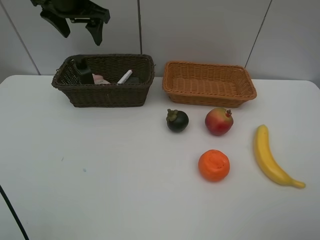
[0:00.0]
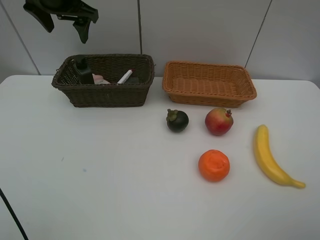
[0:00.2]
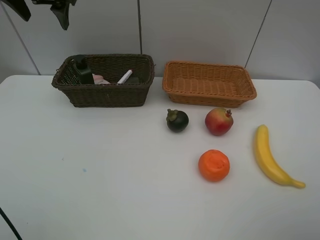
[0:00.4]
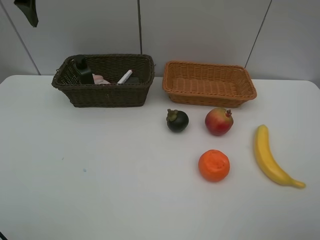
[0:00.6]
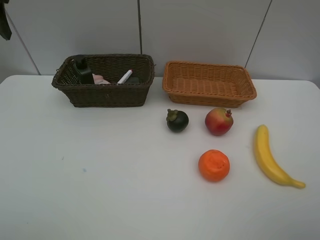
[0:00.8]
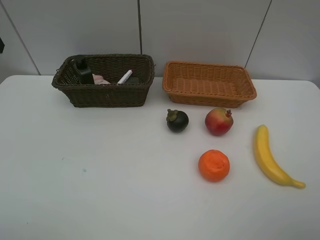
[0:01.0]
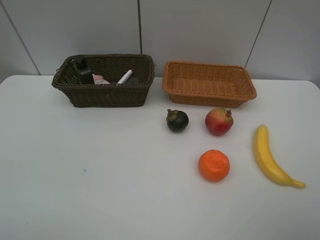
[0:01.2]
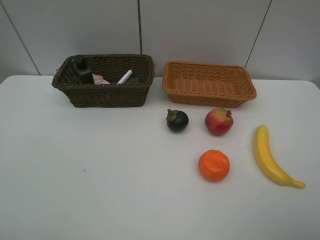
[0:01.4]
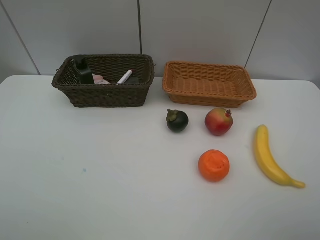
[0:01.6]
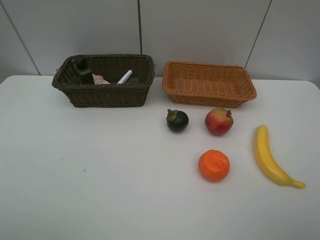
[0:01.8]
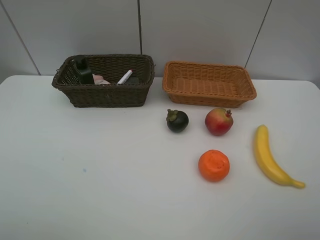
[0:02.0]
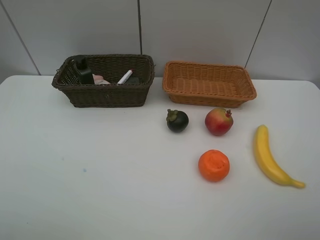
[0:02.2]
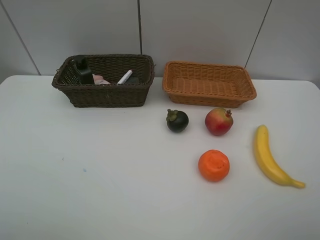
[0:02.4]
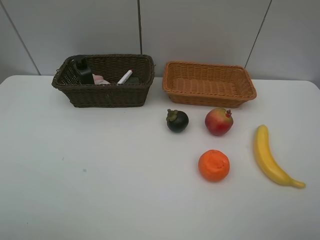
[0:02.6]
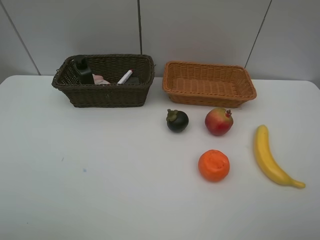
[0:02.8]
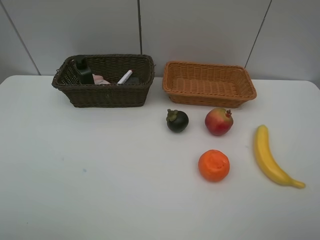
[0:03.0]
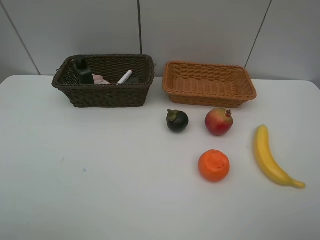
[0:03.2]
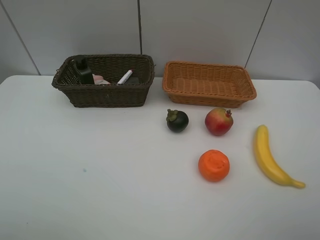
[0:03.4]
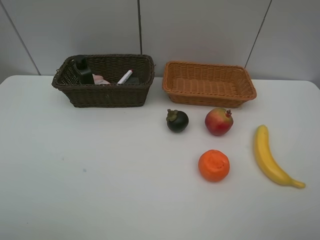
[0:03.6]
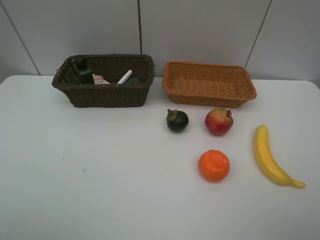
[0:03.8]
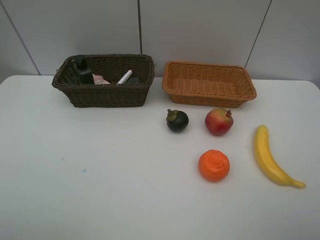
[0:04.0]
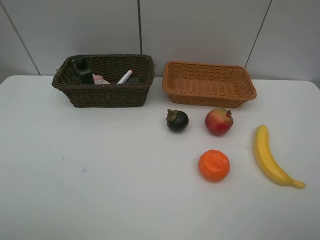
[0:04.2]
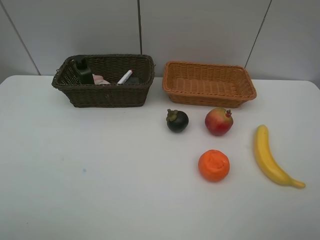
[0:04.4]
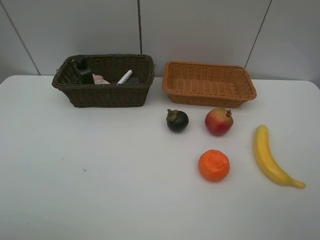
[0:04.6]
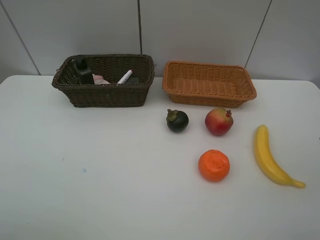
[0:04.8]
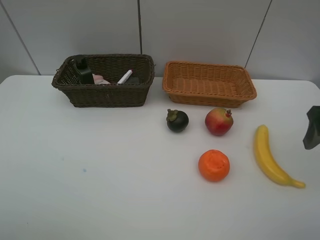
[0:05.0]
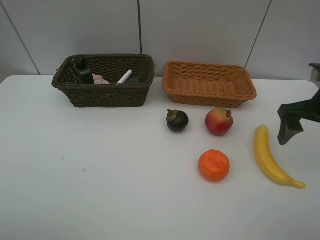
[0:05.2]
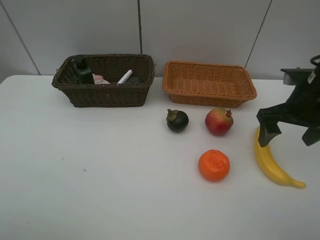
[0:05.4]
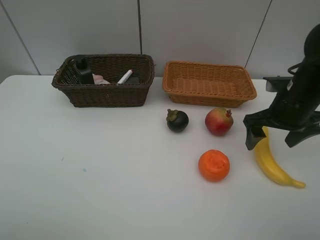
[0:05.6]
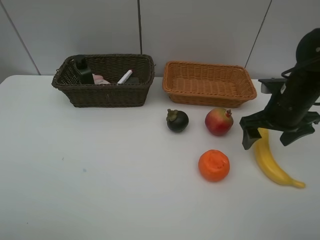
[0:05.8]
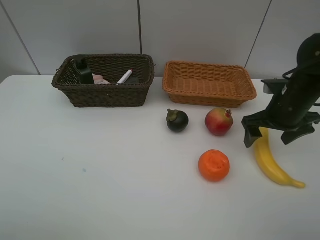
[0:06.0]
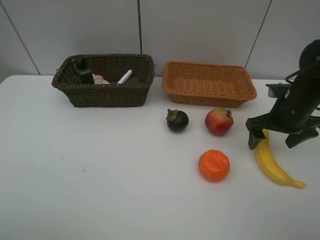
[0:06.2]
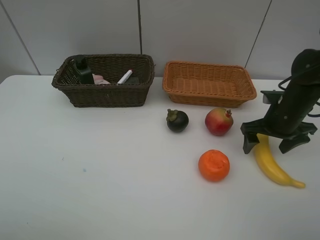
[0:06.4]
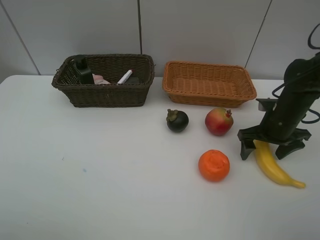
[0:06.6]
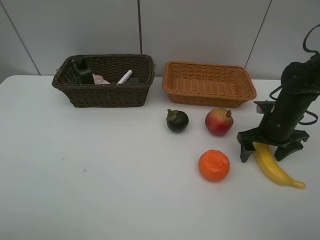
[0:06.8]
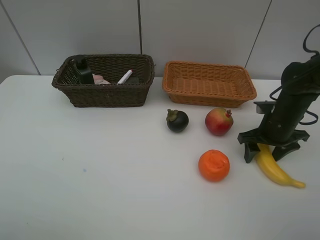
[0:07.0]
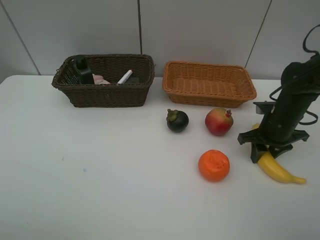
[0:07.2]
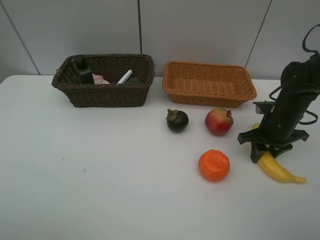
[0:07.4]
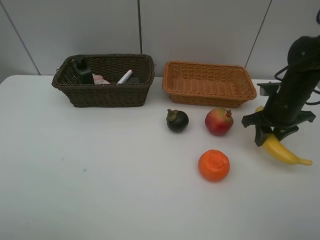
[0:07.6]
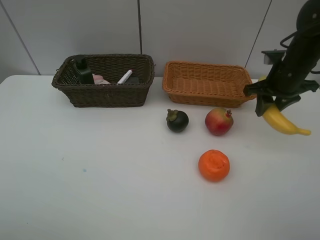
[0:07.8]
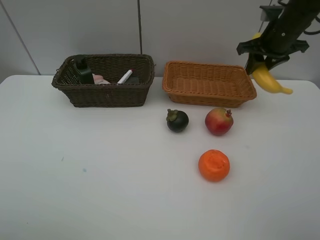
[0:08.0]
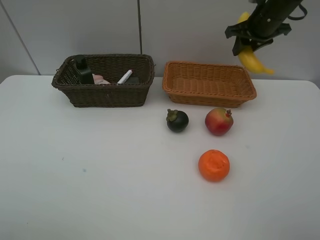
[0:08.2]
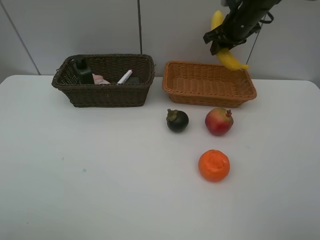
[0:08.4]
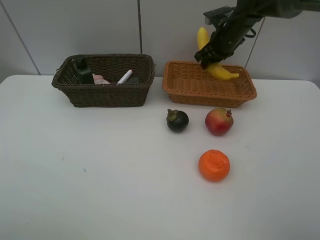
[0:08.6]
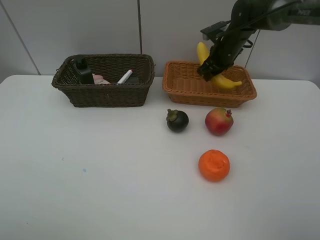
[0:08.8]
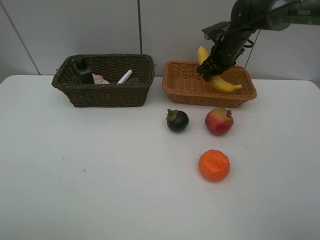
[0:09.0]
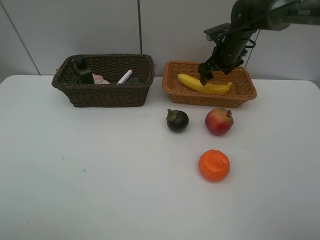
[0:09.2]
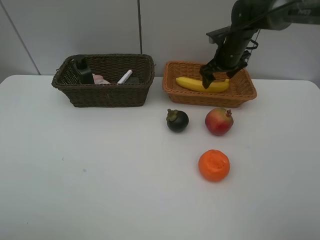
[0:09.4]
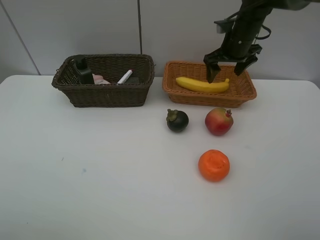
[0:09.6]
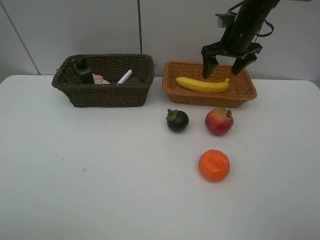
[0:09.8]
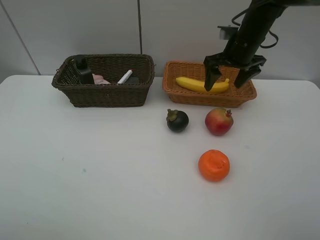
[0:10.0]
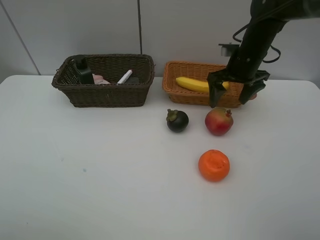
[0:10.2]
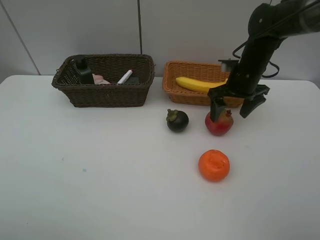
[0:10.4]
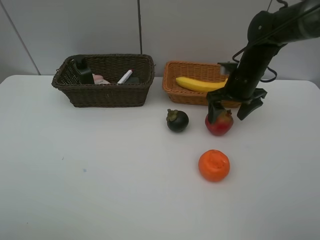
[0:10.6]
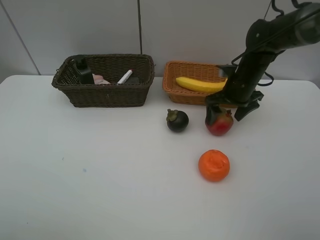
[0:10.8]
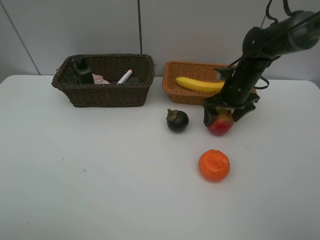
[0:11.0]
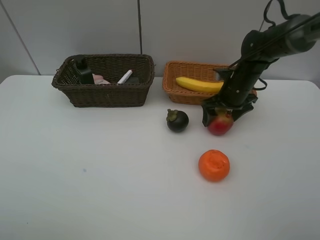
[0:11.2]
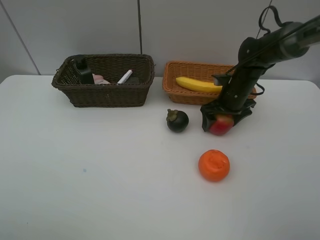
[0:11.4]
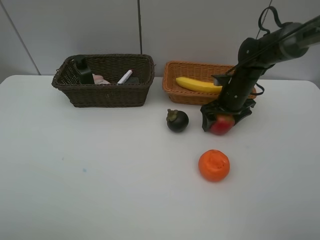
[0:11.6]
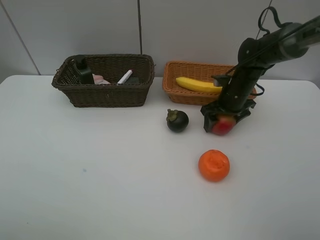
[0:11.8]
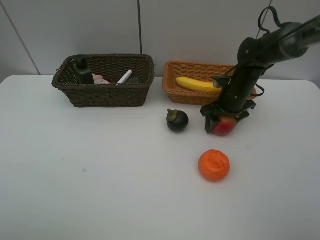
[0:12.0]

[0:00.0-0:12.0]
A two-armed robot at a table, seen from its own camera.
Task of the whole recording: Place multiple objects separately in different baskets.
Step, 0:00.0 to 0:07.4: Pick up banana with right gripper.
Step, 0:07.6 to 0:09.2: Place the banana in the light basket with right gripper.
0:00.0 to 0:01.6: The left gripper heads backward, covering about 35 cm.
0:04.4 to 0:06.0: The right gripper is displaced forward and downward by roughly 30 cm.
0:06.0 to 0:07.6: The right gripper closes its fingers.
0:07.6 to 0:09.0: The right gripper goes approximately 20 cm forward and to the left.
0:09.0 to 0:10.4: The right gripper is displaced backward by roughly 10 cm, and opens up.
0:10.4 to 0:12.0: The right gripper moves downward, about 5 cm, and closes up.

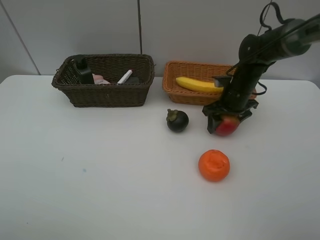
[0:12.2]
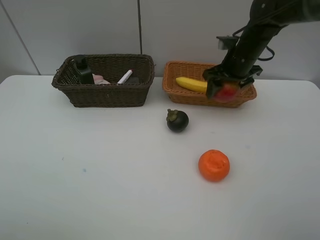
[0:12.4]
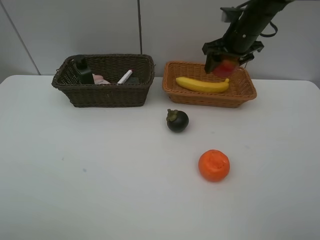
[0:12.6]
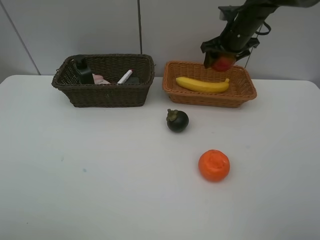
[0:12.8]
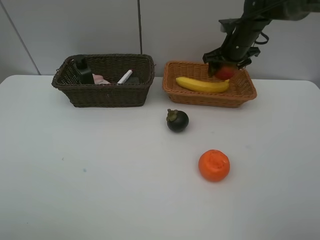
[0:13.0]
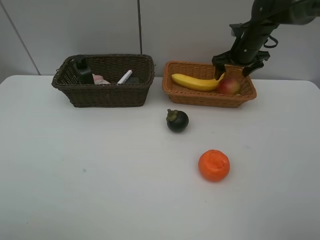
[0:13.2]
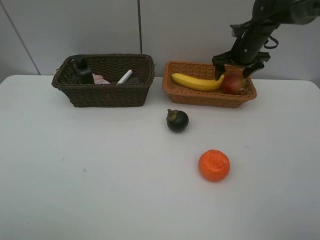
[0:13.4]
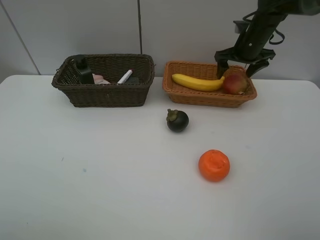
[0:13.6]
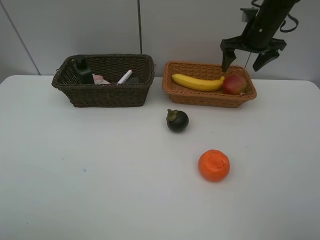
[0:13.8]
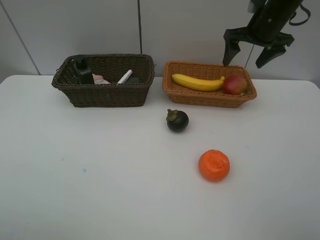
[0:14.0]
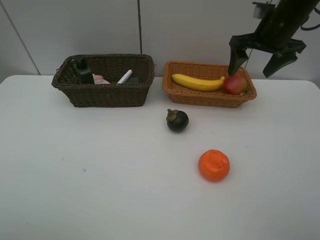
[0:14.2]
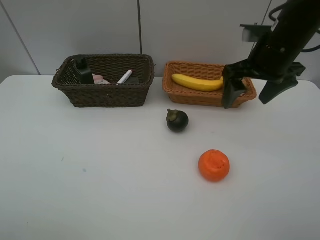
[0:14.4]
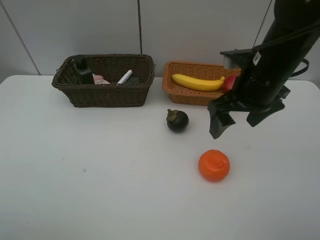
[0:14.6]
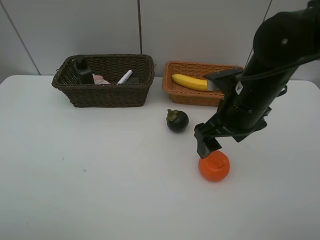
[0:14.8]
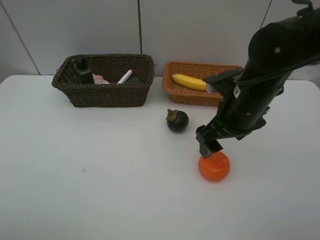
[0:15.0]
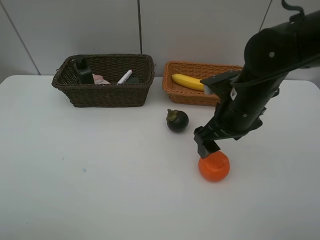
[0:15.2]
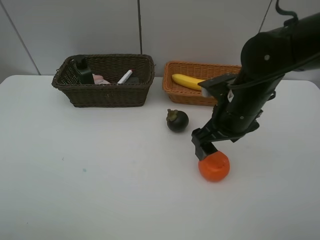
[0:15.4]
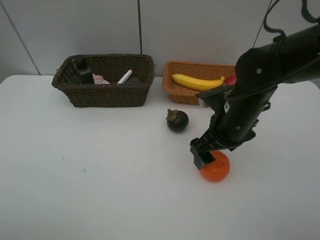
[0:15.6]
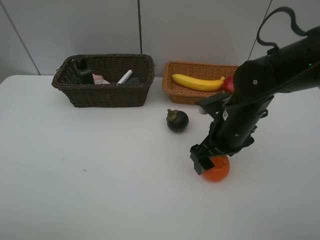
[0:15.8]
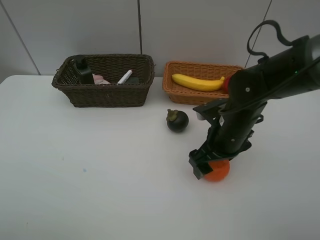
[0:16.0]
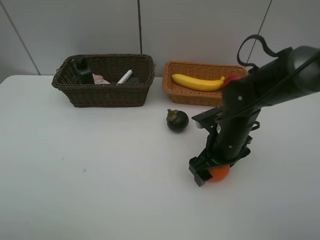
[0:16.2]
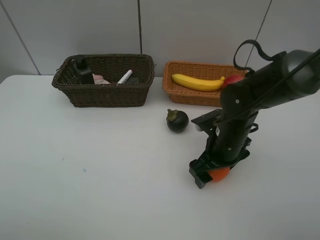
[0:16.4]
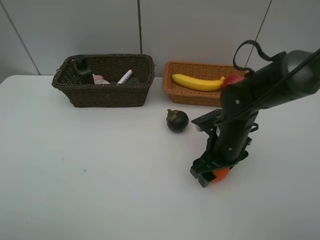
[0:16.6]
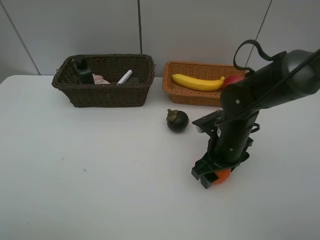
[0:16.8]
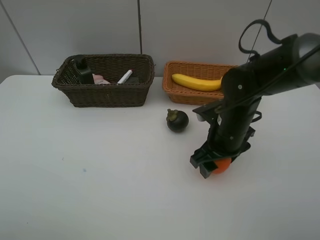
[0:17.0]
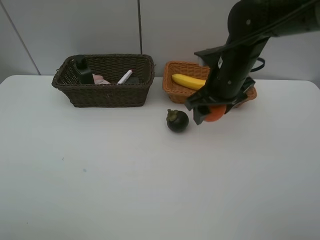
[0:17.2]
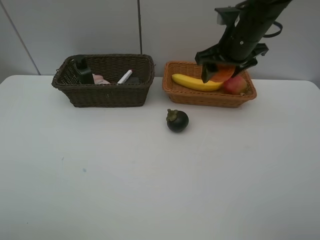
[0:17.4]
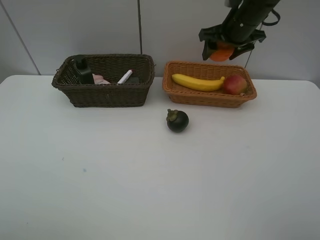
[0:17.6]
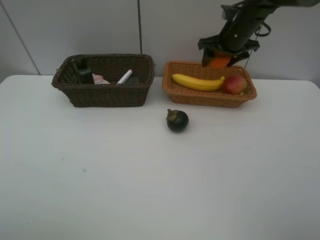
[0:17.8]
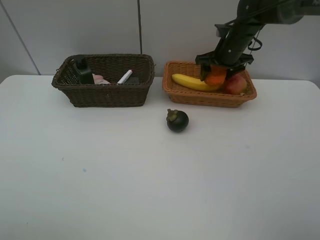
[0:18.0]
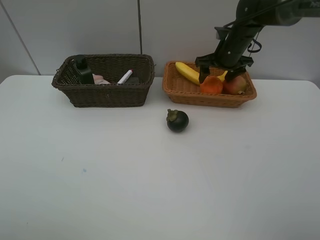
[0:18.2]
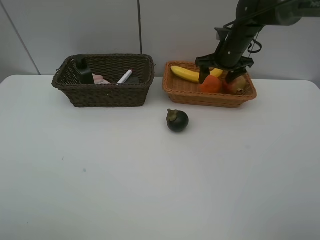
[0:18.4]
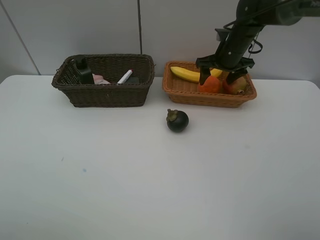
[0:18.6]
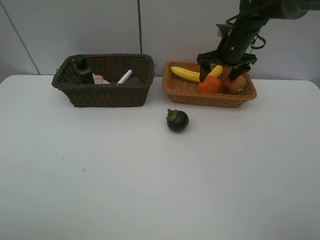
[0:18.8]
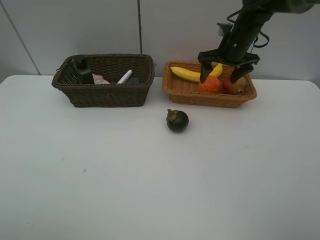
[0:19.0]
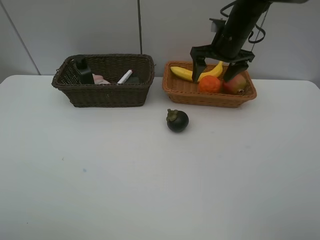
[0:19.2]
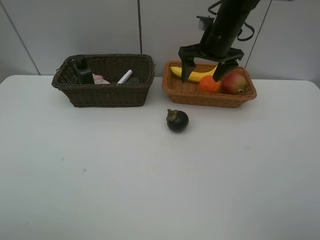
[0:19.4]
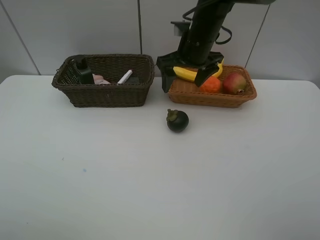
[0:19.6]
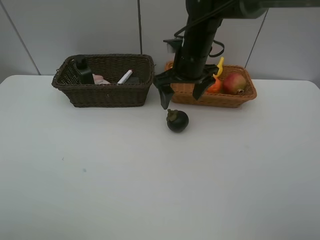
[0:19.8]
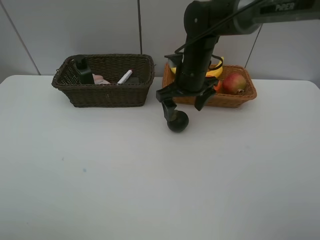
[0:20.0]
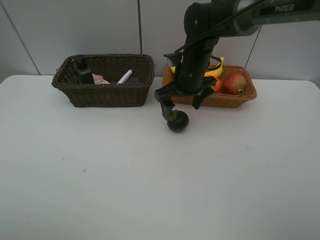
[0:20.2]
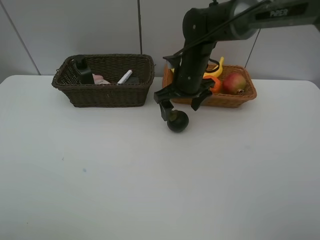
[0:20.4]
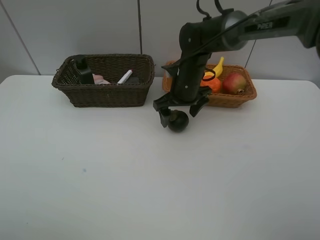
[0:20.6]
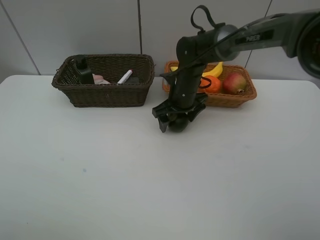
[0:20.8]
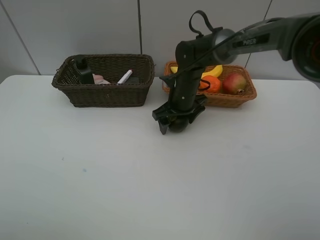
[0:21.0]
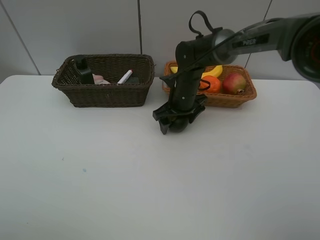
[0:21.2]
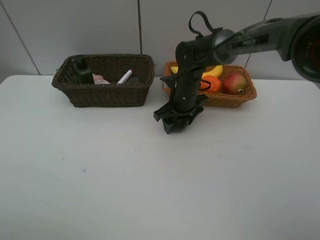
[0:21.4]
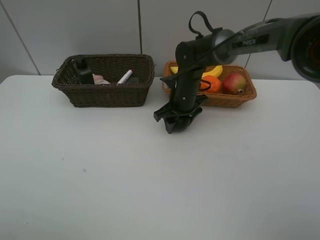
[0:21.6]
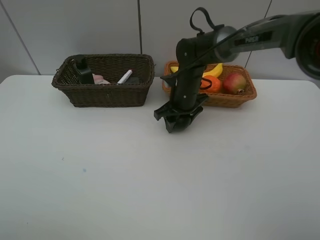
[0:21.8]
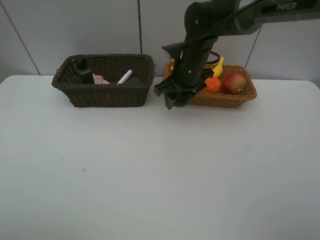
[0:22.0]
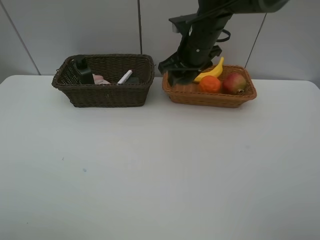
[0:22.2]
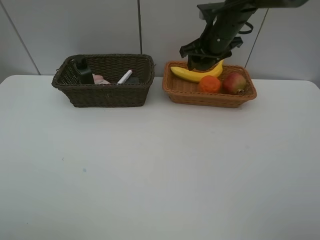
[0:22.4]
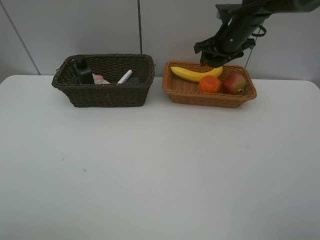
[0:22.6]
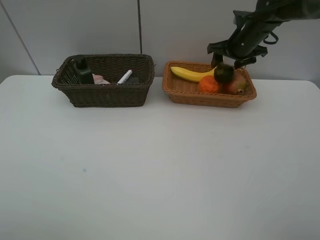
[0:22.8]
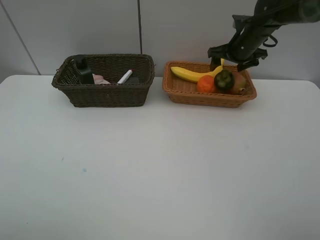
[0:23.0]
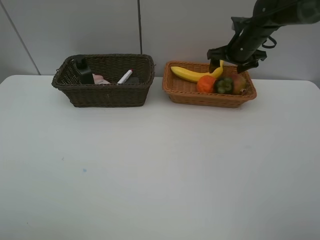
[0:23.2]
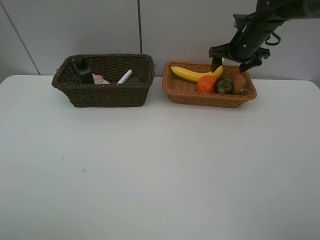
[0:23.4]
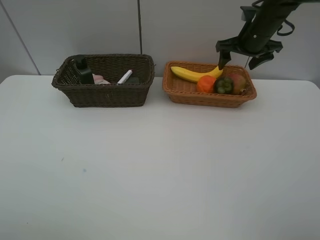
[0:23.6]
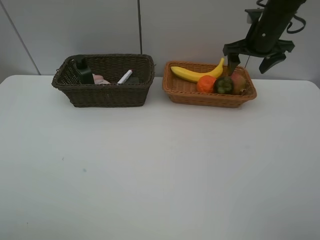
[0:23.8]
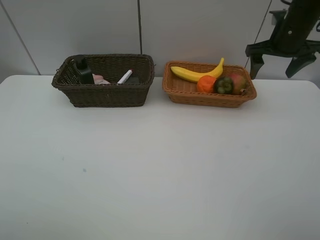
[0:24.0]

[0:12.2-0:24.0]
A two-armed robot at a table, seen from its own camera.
Task of the whole recording: Place multiple objects separately in different baskets.
Step, 0:12.4 to 0:13.4: Place the pomegranate in the light basket with right gripper.
Step, 0:13.6 to 0:17.0: Pick up the orange with right gripper.
Step, 0:17.2 to 0:18.8: Place the orange in the light basket with right gripper.
Step, 0:19.0 to 0:21.8: Pick up the mangosteen with right gripper.
Step, 0:22.0 to 0:23.0: Place the mangosteen in the light basket with right gripper.
0:12.2 to 0:13.6: The right gripper heads upward and forward, covering approximately 10 cm, and opens its fingers.
0:13.6 to 0:15.2: The right gripper goes approximately 25 cm backward and to the left.
0:15.2 to 0:16.6: The right gripper moves downward, approximately 10 cm, and closes its fingers.
0:16.6 to 0:18.2: The right gripper goes some 25 cm forward.
0:18.2 to 0:19.6: The right gripper moves to the left and backward, approximately 15 cm.
0:19.6 to 0:21.0: The right gripper travels downward by roughly 15 cm.
0:21.0 to 0:22.6: The right gripper goes some 20 cm to the right, upward and forward, and closes up.
0:22.6 to 0:24.0: The right gripper is displaced to the right and backward by about 10 cm, and opens up.
